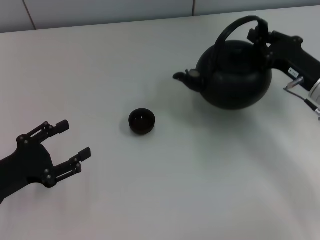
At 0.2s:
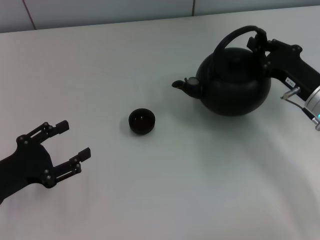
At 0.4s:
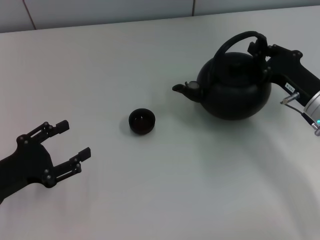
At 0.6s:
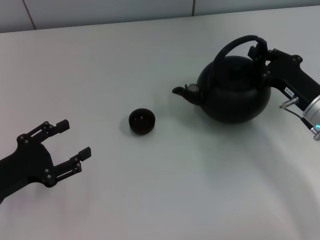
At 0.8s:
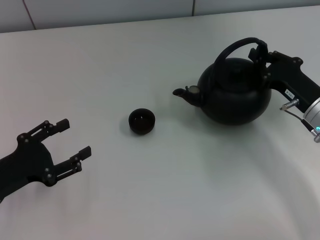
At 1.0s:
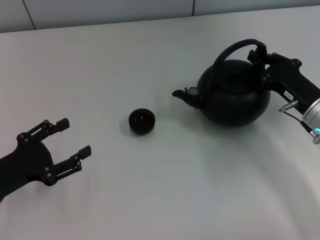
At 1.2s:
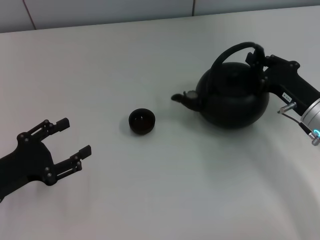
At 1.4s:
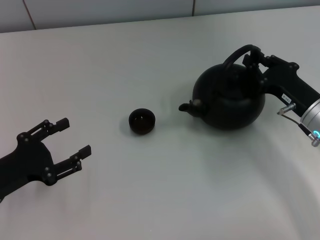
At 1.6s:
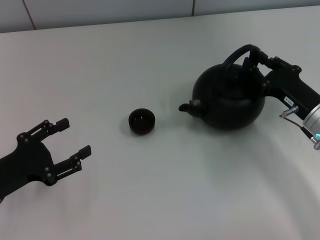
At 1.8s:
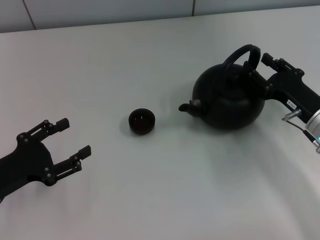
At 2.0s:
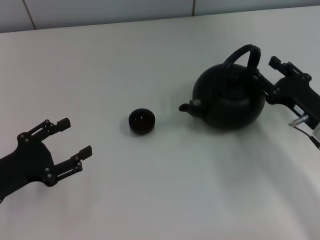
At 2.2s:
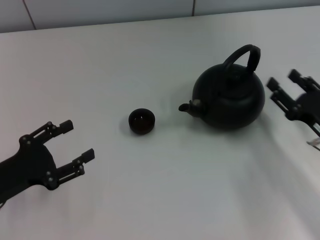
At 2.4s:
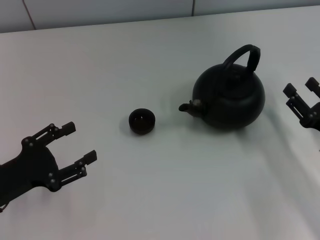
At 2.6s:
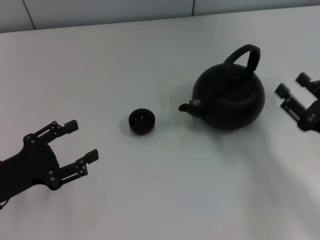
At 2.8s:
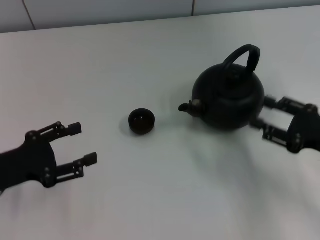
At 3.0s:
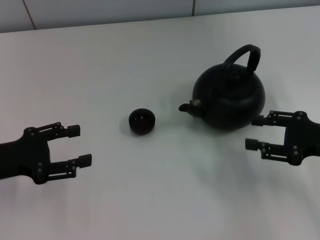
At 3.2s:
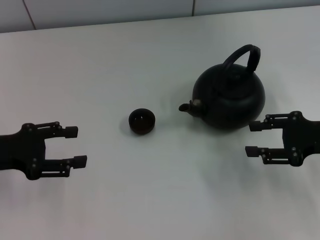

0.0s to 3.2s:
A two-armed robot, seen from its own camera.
Task of the whole recording: Grasp the handle of the teapot with one hand and pour tea into the teacup.
Step, 0.0s to 2.0s: Put down the teapot with the right gripper.
0.0s to 1.6s: The grippers stay close to where they were, moving slightly.
1.6s to 3.2s: The right gripper shifts some 5 cm upward, travels backward and back again, roughly 10 cm each way, and opens its fingers. The left gripper moves upward and forward, about 10 cm.

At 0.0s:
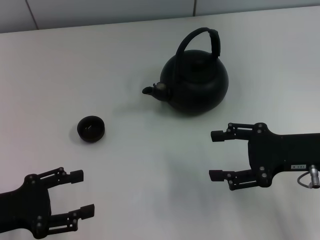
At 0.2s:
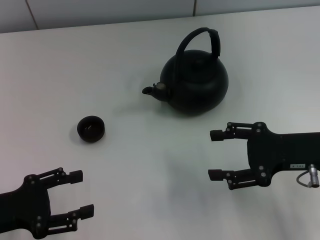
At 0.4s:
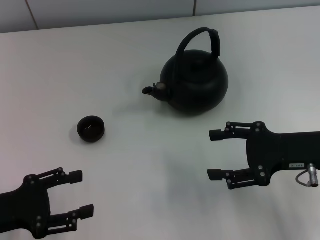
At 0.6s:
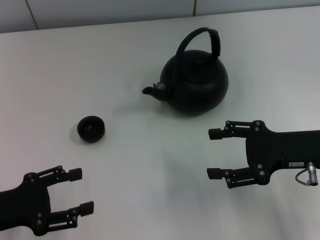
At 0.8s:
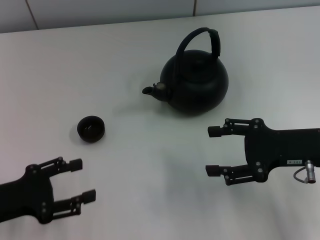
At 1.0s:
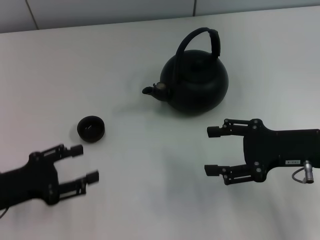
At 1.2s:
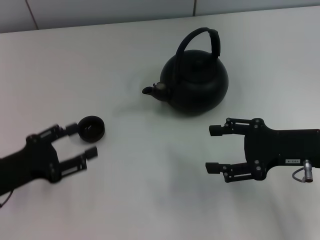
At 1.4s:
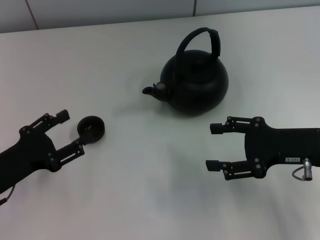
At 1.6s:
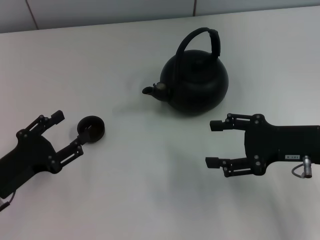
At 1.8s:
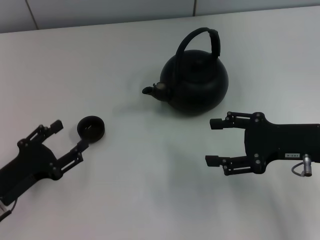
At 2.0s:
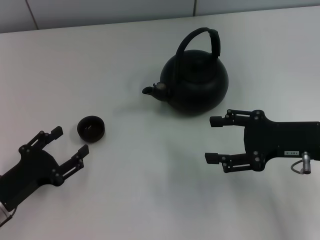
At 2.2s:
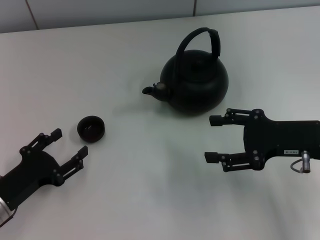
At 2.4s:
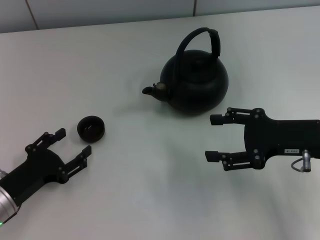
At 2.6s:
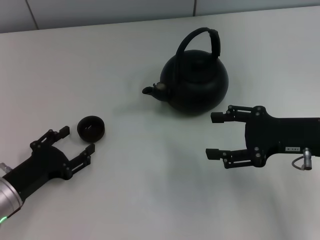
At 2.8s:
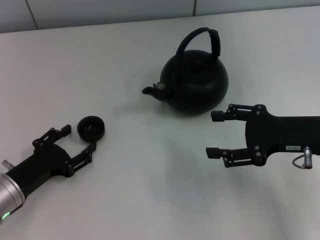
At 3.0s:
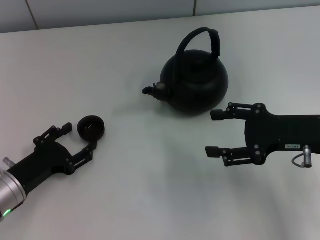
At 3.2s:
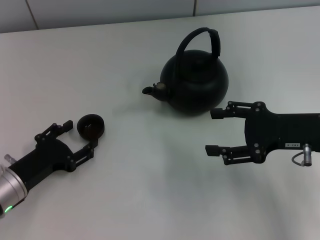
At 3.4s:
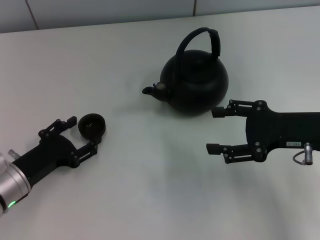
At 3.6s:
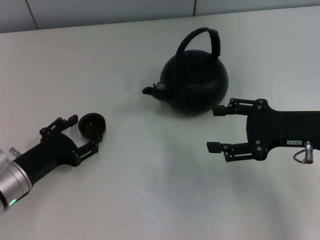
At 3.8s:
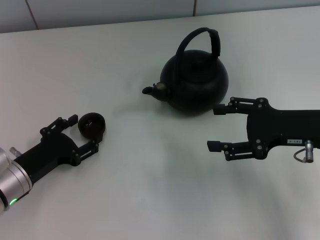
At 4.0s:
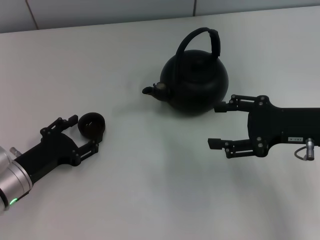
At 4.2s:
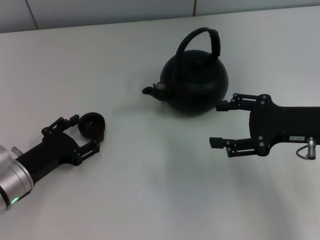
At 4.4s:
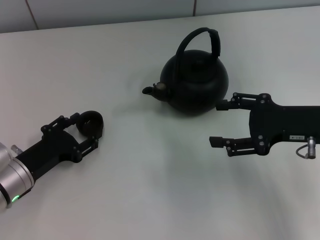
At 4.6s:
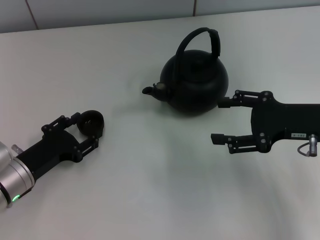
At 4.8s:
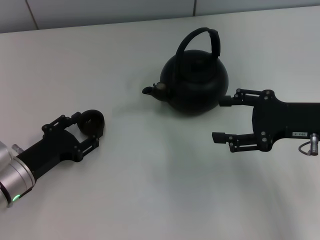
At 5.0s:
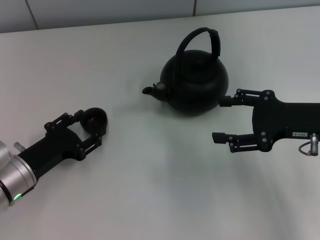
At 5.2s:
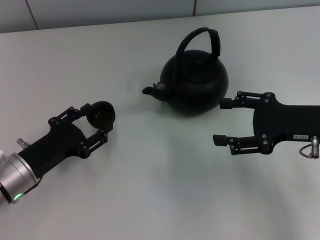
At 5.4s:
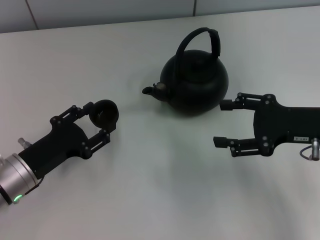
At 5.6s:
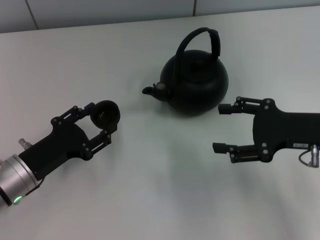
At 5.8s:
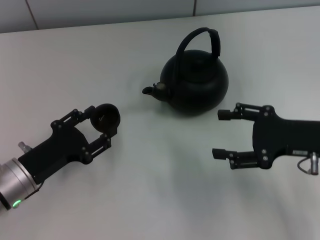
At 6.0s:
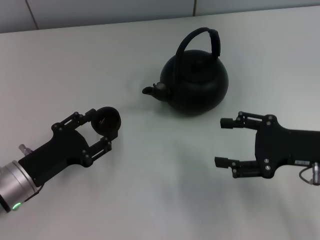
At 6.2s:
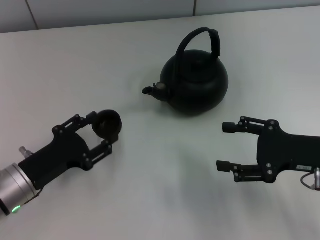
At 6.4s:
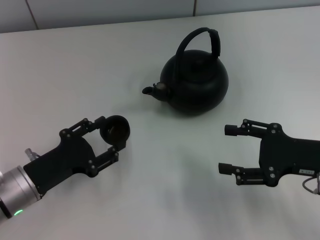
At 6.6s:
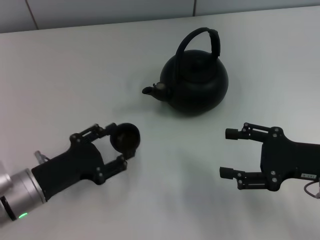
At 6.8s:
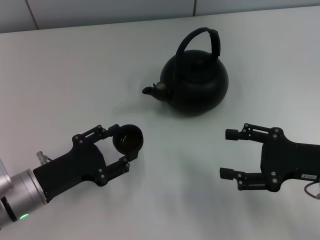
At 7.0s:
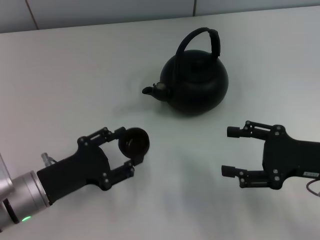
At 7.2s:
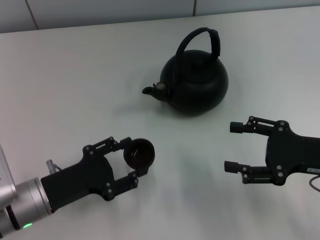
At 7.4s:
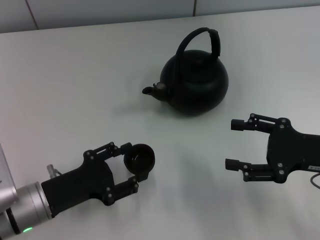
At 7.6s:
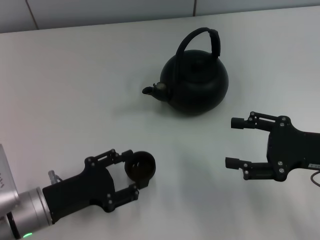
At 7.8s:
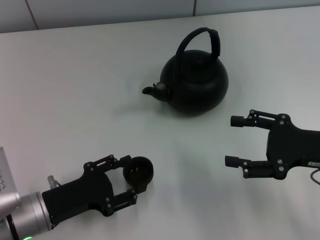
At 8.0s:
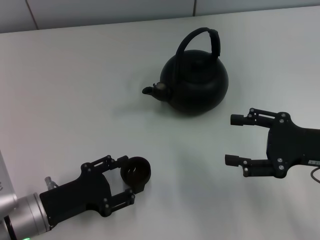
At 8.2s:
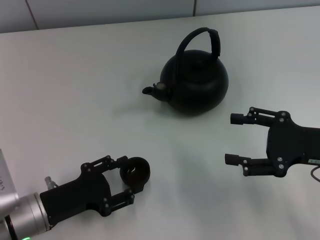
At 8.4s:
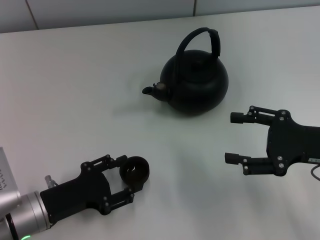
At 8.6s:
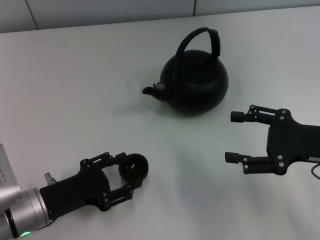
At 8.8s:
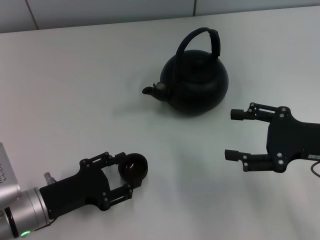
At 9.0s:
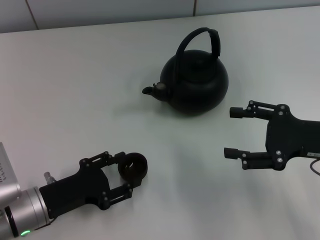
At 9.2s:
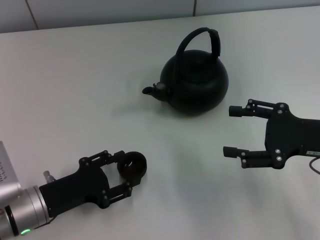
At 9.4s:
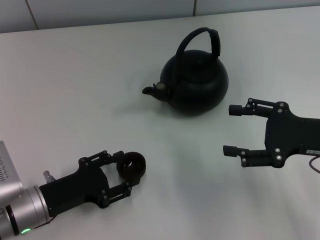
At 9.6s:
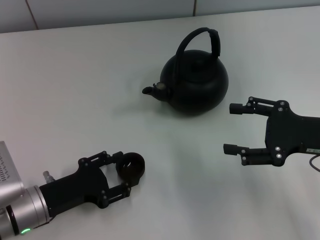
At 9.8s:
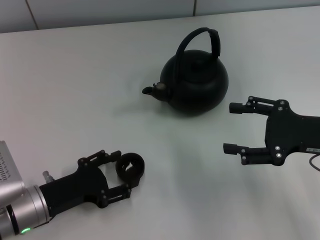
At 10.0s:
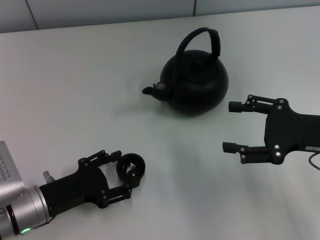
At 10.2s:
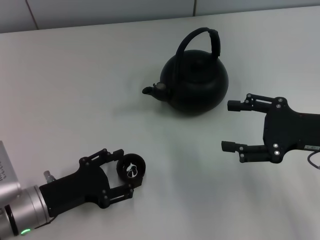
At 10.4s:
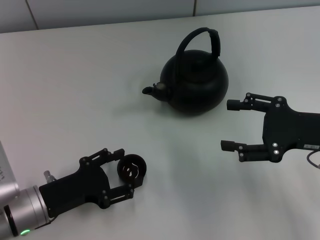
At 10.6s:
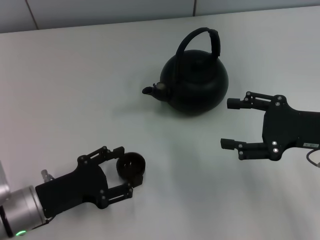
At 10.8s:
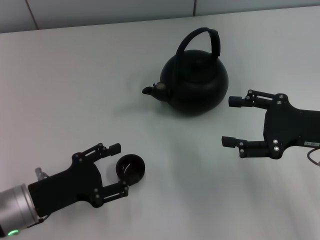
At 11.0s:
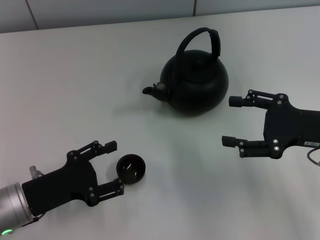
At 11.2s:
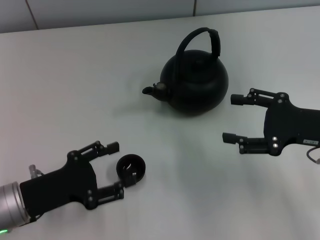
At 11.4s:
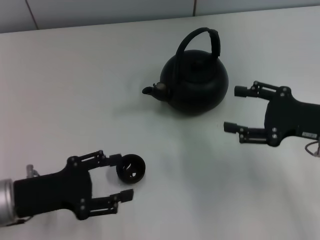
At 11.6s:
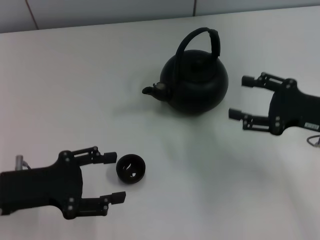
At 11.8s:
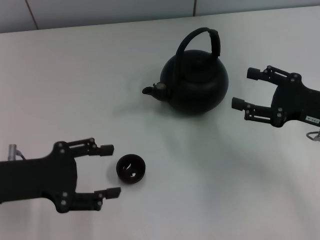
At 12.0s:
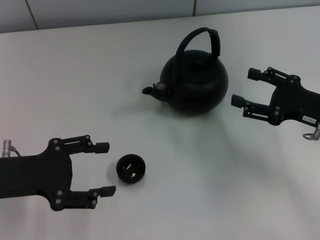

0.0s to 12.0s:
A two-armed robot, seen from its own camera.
Task of the whole recording: Grasp the handle of the teapot with one hand and pour tea into the teacup.
Step, 0.0s to 5.8s: Pick up the teacup with the left gripper.
Step, 6.0s to 11.6s: Place the teacup in the center of view with the left gripper.
1.6s to 6.0s: There are only small adjustments of the grippers.
7.6s to 9.0s: The grippers move only a little.
9.0s to 10.4s: Both grippers stay put.
10.4s to 12.0s: The left gripper shifts approximately 10 cm upward.

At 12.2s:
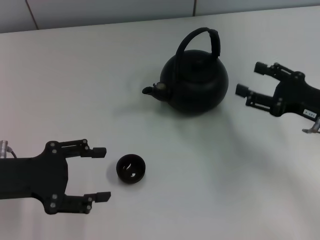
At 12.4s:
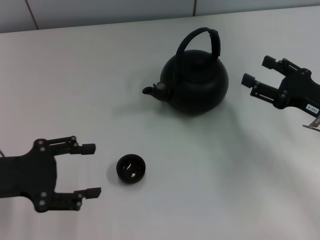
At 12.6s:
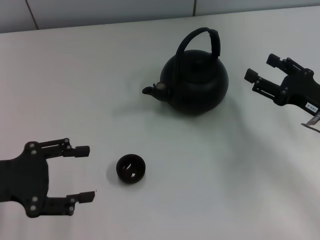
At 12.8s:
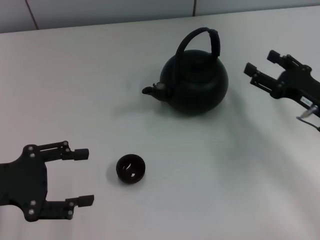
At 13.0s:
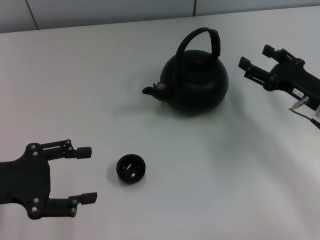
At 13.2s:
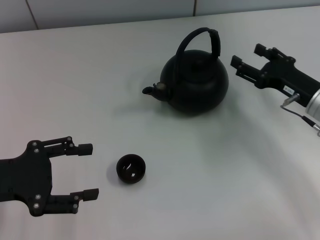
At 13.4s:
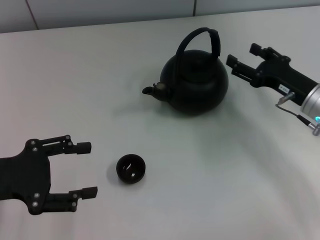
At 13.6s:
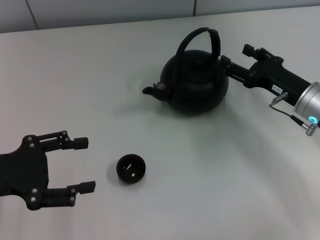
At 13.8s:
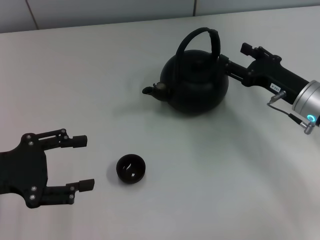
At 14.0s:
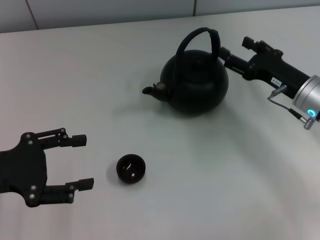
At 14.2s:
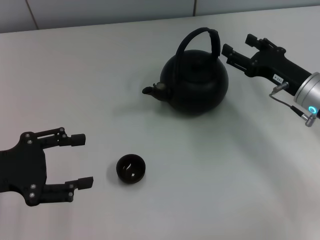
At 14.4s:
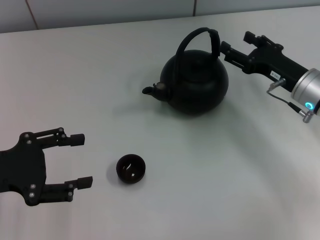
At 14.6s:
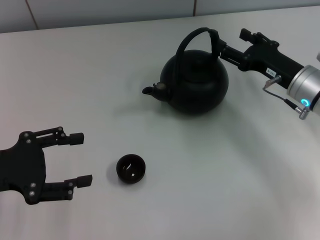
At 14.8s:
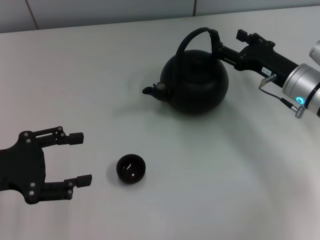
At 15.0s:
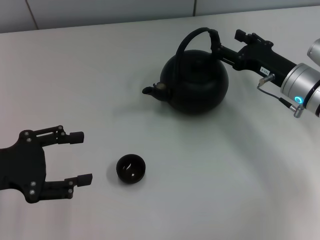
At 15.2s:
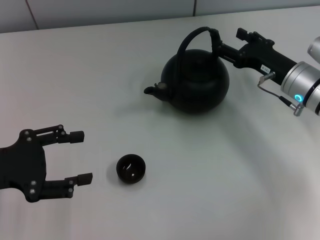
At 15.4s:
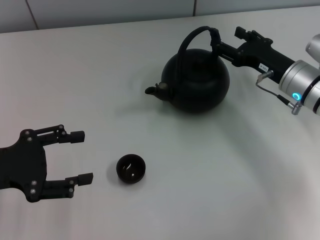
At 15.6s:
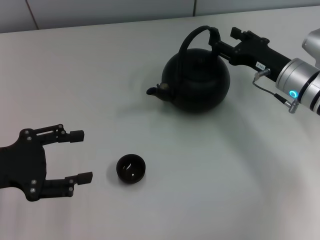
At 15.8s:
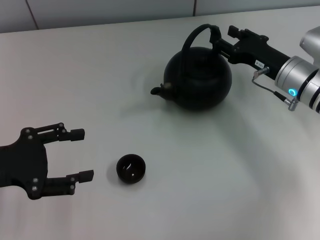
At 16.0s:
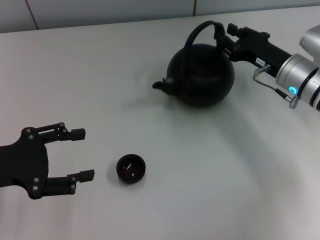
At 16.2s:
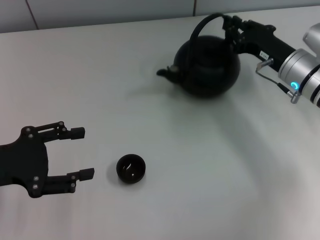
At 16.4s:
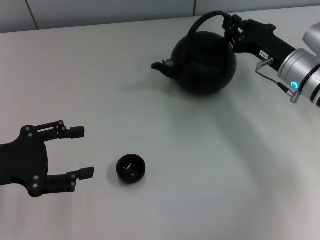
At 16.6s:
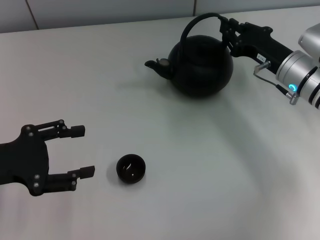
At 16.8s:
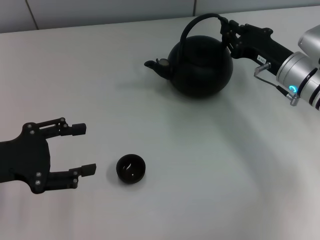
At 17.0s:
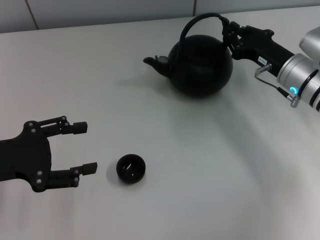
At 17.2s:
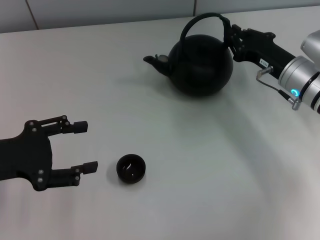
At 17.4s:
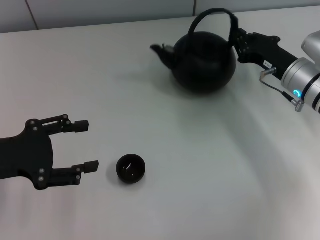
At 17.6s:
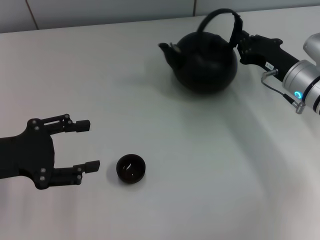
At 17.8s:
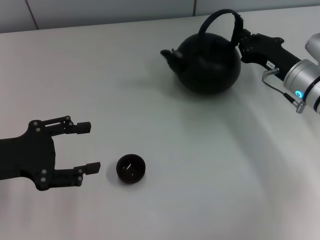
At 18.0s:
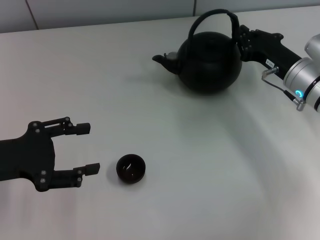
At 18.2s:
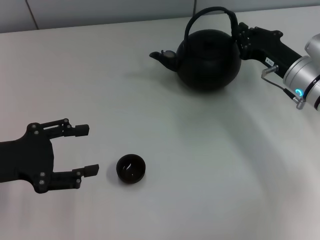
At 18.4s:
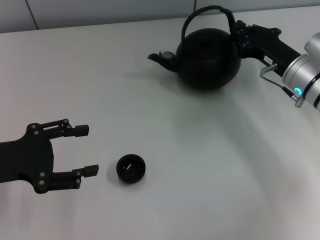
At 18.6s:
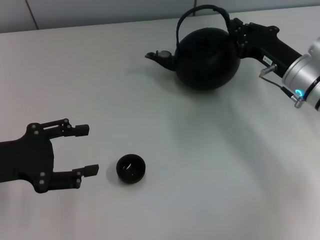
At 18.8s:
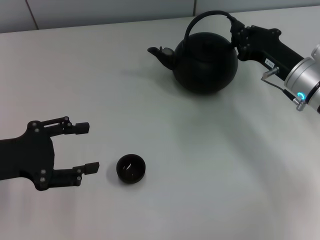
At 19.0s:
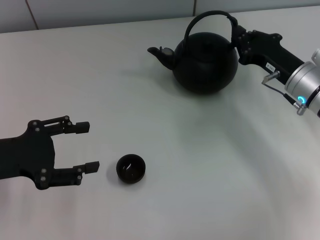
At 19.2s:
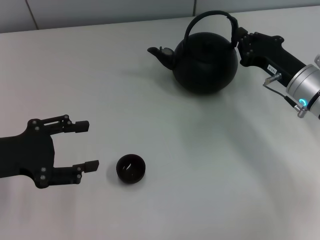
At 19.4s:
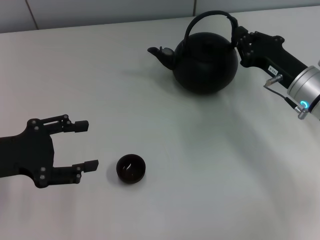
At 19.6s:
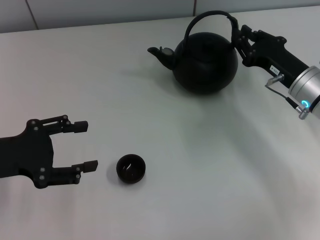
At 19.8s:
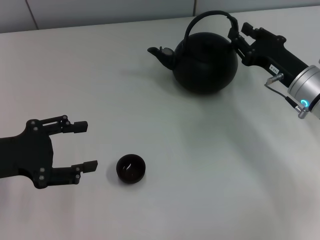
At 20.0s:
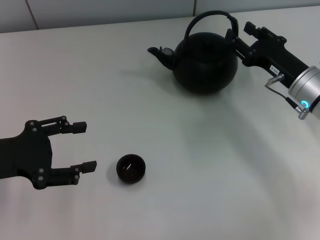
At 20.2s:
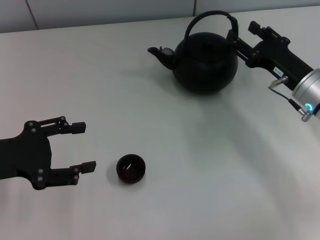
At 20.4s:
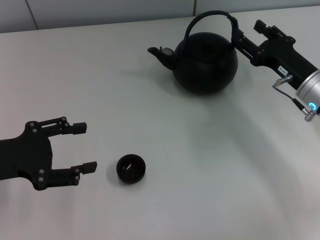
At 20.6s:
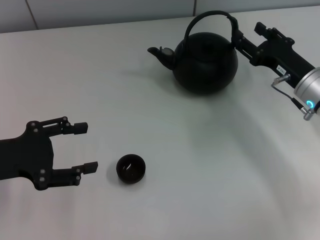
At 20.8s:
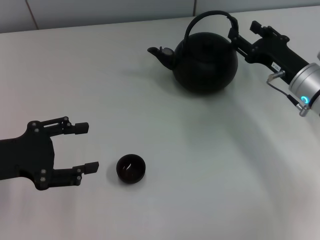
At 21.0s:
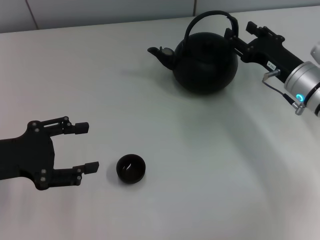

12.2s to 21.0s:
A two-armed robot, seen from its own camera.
Task of the whole recording: Grasp the handle of the teapot with one hand and pour tea into the teacup.
12.2s to 13.6s: The right gripper shifts by roughly 5 cm.
13.6s to 15.2s: There are only small adjustments of the grippers.
15.2s to 16.6s: The right gripper closes its fingers.
16.6s to 19.6s: The grippers move only a little.
19.6s to 21.0s: The right gripper opens up.
